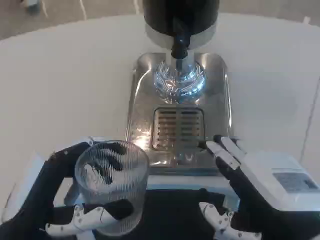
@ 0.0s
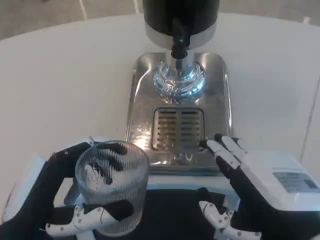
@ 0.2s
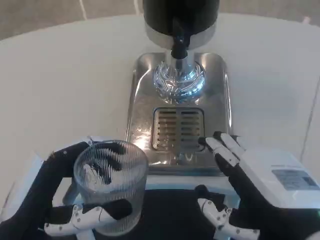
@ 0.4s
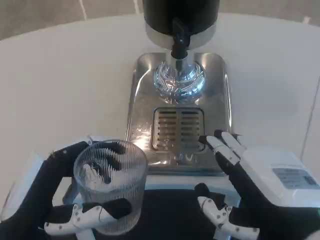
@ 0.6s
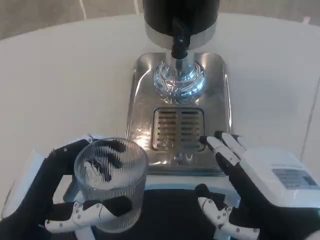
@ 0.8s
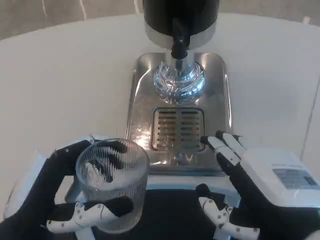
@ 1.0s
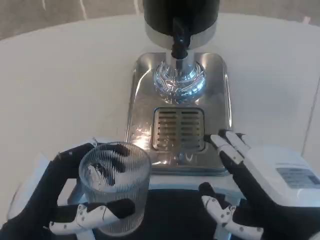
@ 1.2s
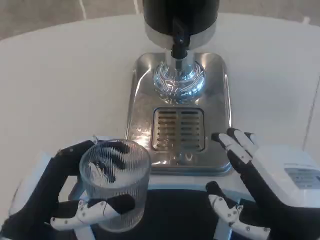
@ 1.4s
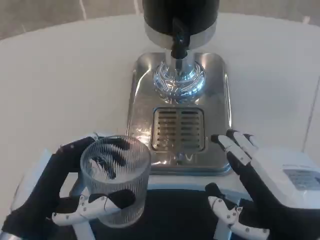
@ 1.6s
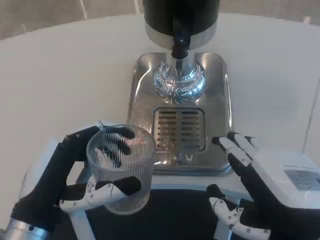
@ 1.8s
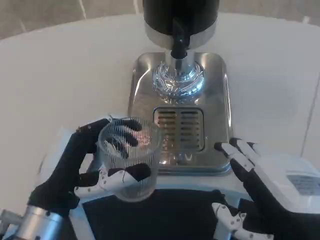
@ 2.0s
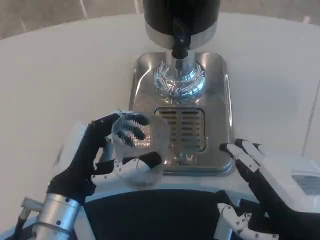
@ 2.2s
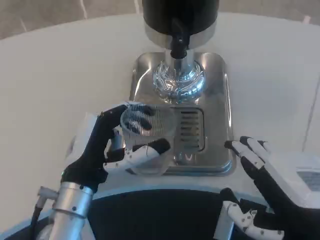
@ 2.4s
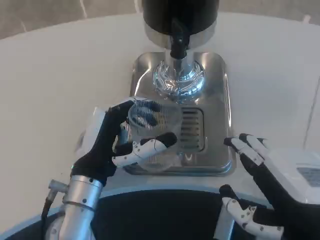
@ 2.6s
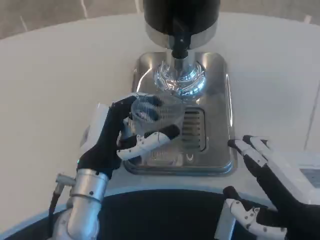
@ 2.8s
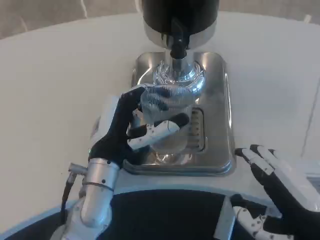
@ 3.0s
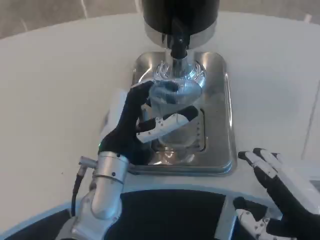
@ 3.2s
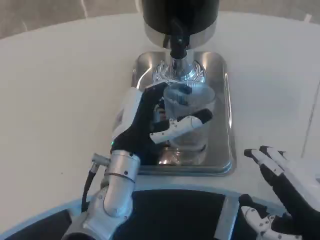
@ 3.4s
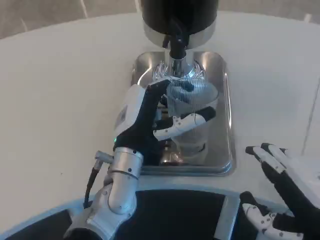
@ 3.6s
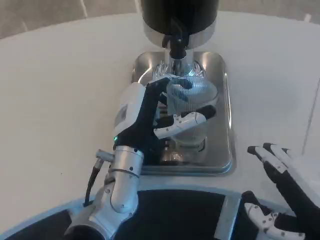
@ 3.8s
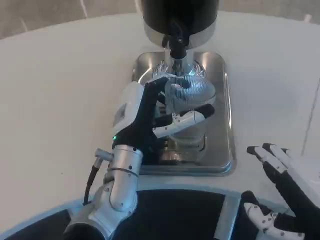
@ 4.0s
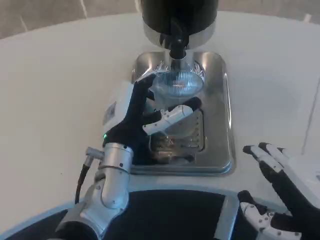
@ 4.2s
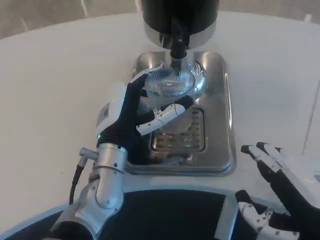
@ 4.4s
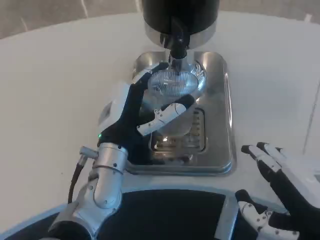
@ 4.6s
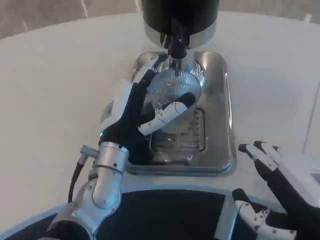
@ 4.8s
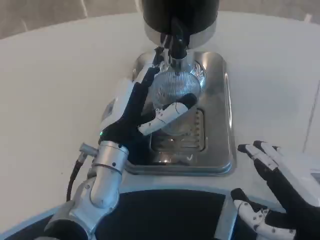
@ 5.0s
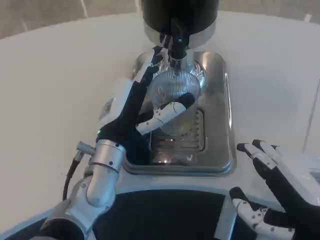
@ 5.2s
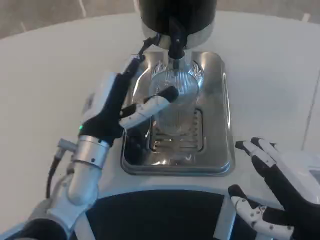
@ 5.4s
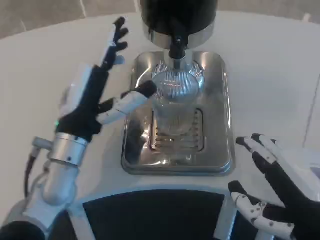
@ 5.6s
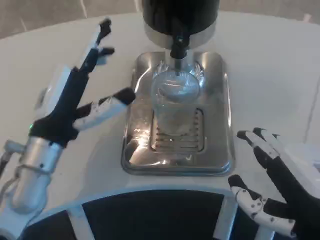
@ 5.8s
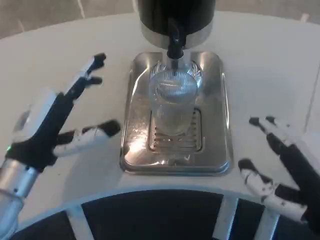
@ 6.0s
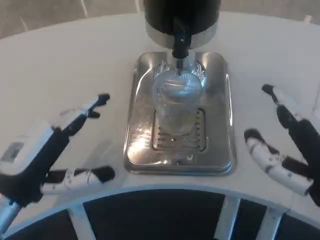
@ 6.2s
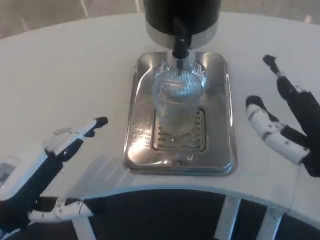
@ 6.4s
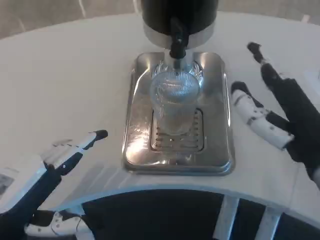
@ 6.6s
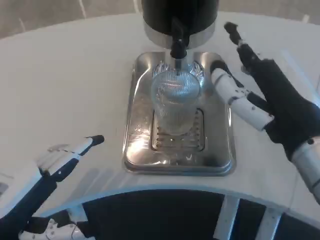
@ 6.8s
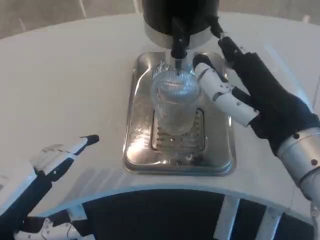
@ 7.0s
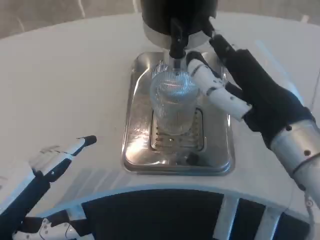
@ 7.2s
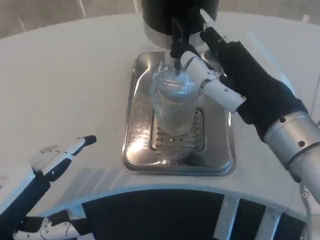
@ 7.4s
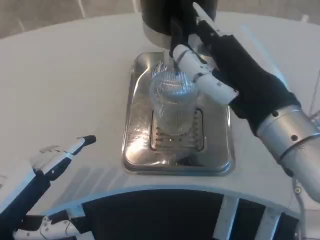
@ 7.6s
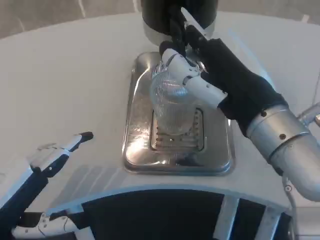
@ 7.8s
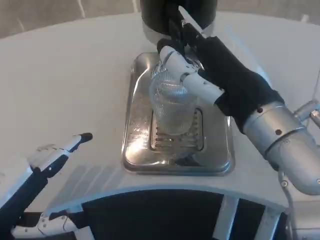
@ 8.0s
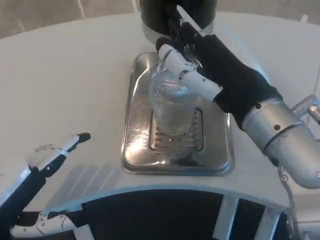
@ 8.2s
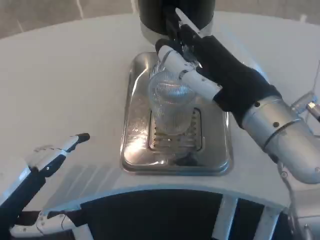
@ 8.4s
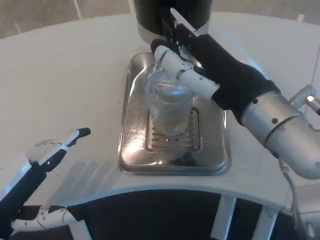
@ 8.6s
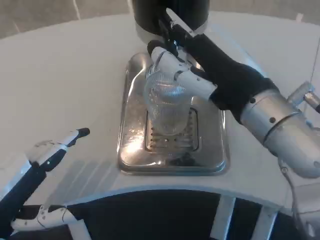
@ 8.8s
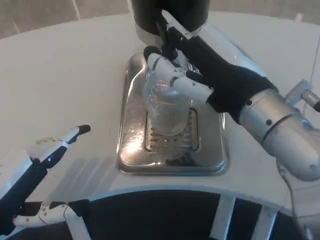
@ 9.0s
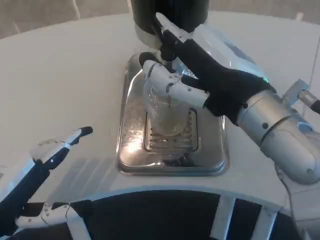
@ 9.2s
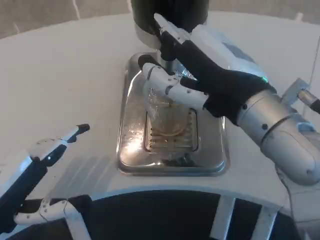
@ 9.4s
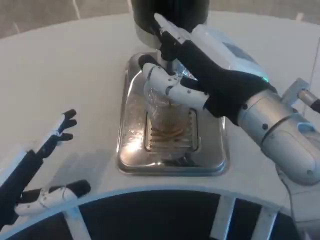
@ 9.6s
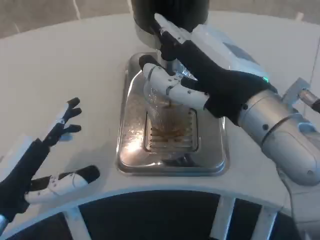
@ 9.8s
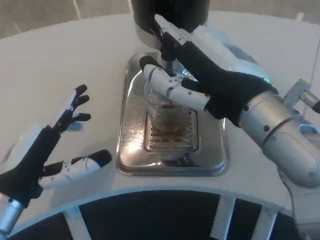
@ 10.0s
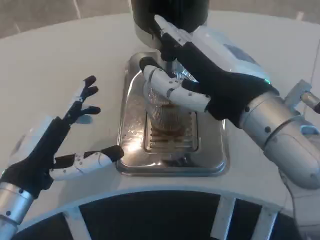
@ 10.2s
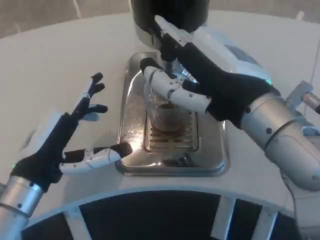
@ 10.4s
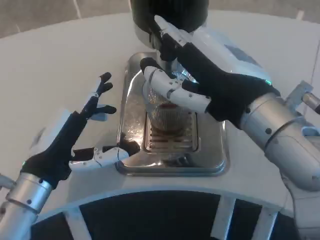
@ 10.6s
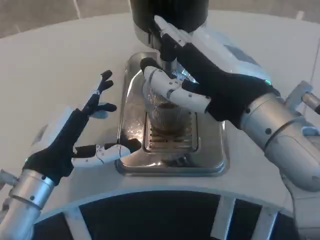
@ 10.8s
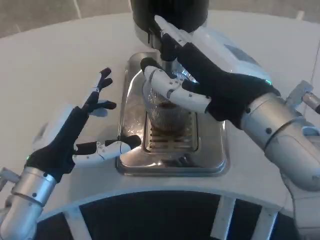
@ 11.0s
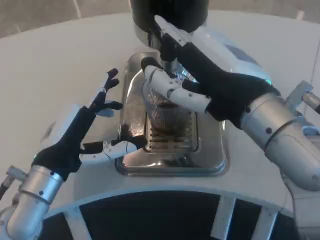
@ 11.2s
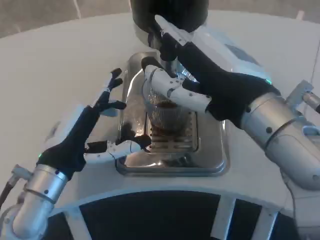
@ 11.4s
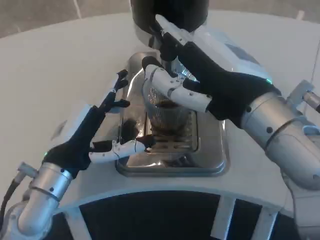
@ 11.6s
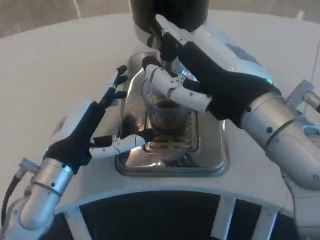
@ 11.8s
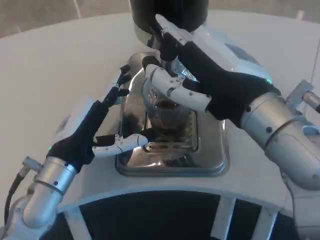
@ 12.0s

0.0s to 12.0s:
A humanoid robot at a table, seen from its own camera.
Task of the whole recording: Grasp the cup under the faucet to collect the drink, then remove the cup.
0.0s to 1.6s: There are only small adjustments of the hands.
1.6s to 3.0s: The left hand is displaced forward and to the right by about 15 cm.
3.0s to 4.4s: The hands make only small movements.
4.4s to 6.0s: The left hand shifts approximately 15 cm to the left and backward.
6.0s to 7.6s: The left hand heads backward, covering approximately 10 cm; the right hand goes about 10 cm forward and to the left.
9.0s to 10.4s: The left hand travels to the right and forward by about 10 cm.
10.4s to 12.0s: The left hand moves some 5 cm.

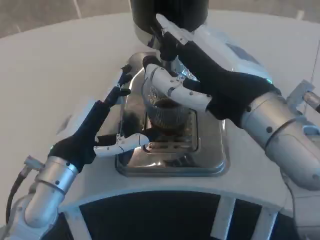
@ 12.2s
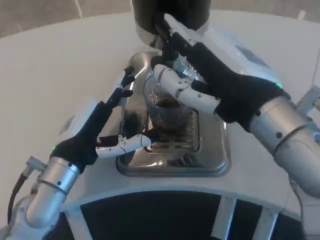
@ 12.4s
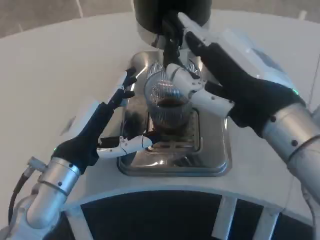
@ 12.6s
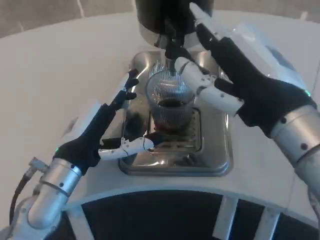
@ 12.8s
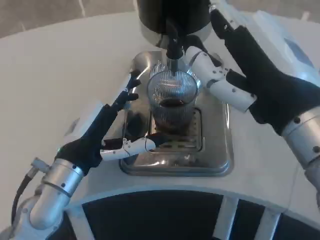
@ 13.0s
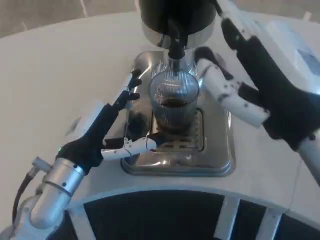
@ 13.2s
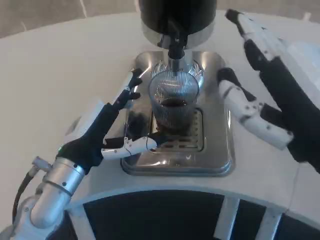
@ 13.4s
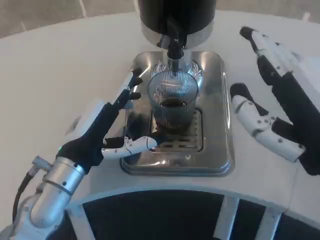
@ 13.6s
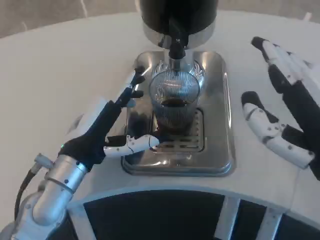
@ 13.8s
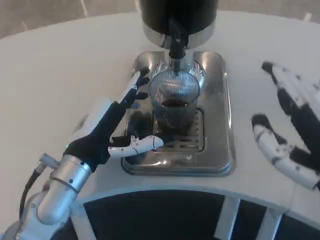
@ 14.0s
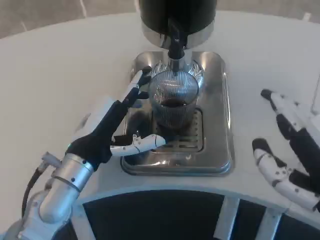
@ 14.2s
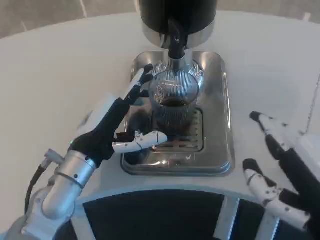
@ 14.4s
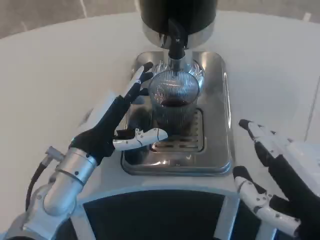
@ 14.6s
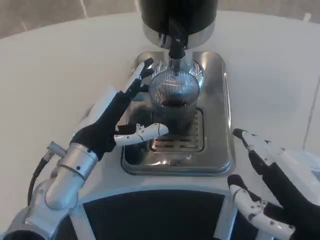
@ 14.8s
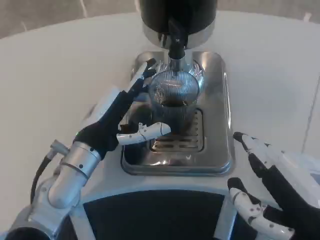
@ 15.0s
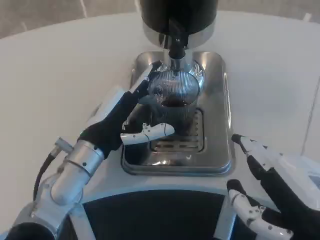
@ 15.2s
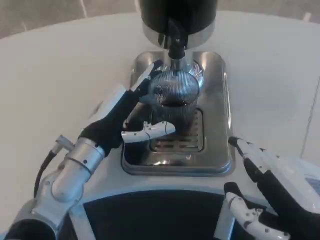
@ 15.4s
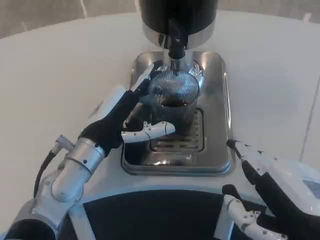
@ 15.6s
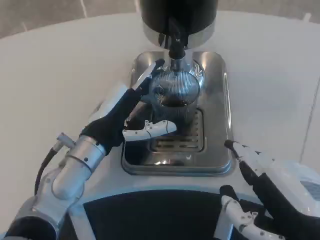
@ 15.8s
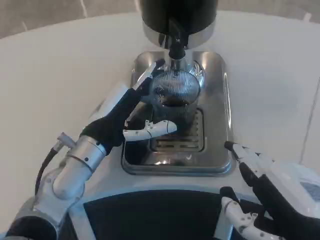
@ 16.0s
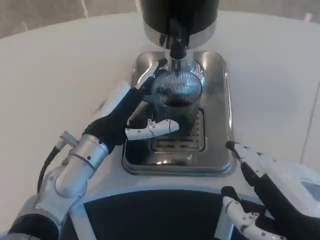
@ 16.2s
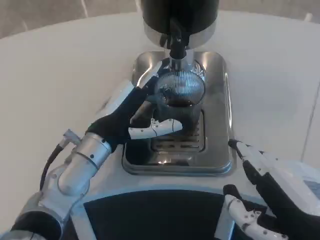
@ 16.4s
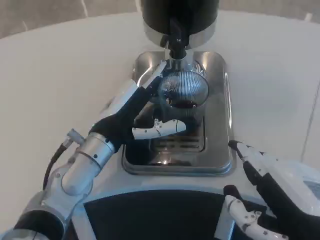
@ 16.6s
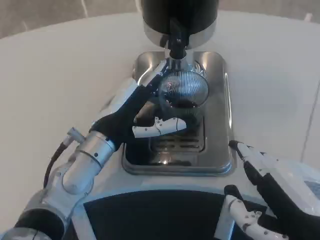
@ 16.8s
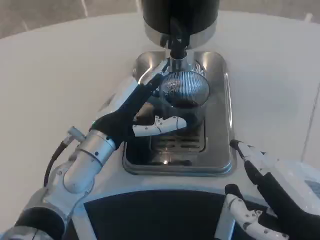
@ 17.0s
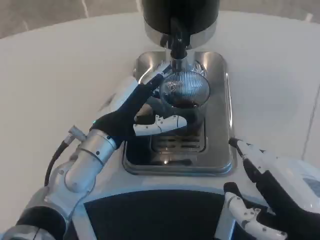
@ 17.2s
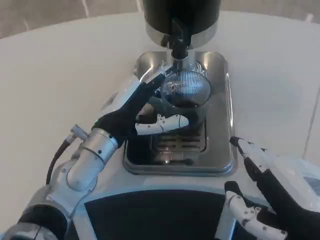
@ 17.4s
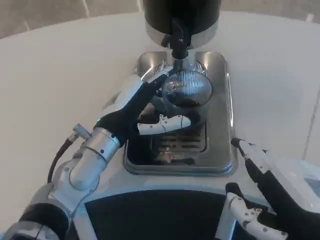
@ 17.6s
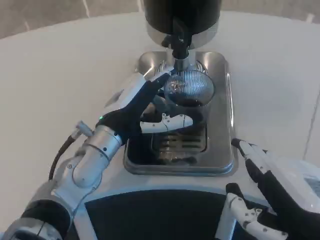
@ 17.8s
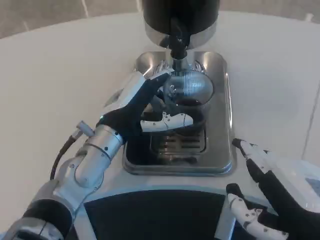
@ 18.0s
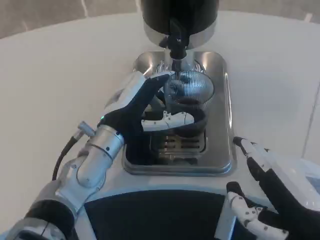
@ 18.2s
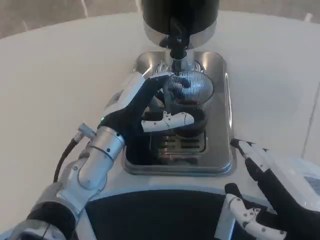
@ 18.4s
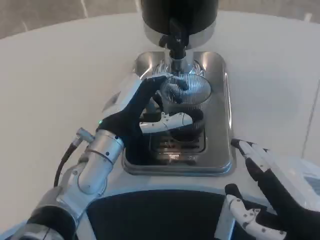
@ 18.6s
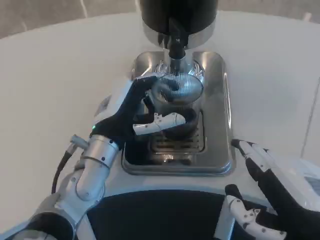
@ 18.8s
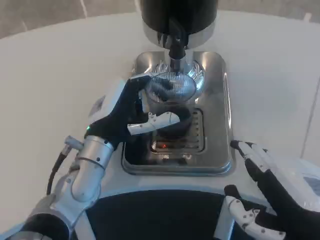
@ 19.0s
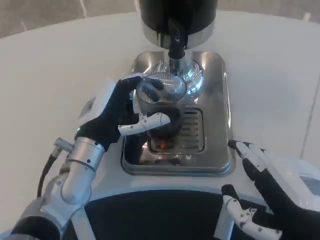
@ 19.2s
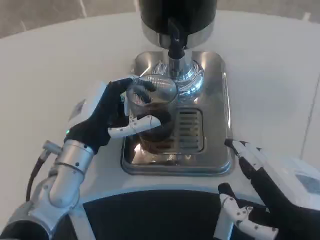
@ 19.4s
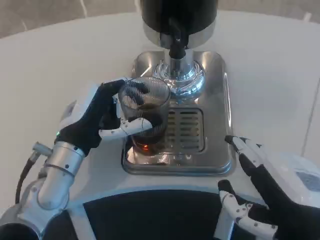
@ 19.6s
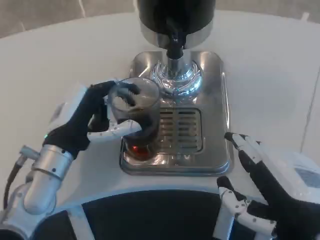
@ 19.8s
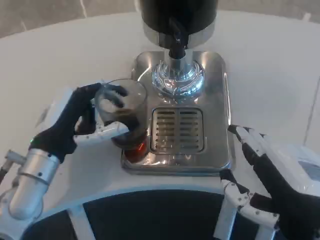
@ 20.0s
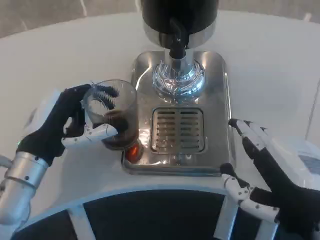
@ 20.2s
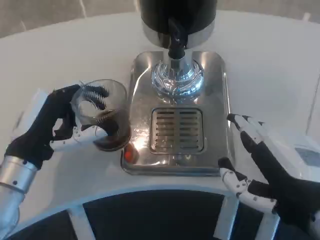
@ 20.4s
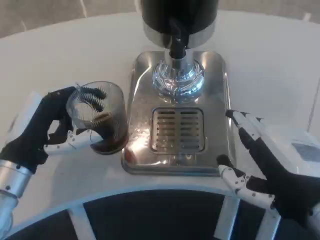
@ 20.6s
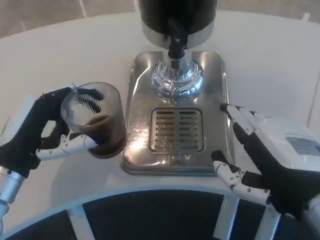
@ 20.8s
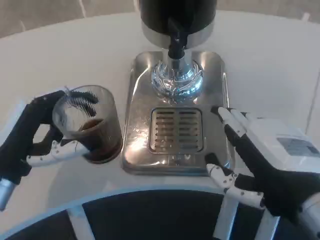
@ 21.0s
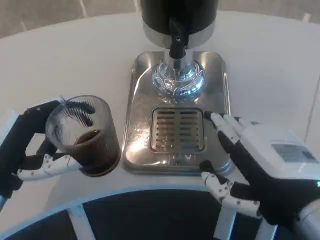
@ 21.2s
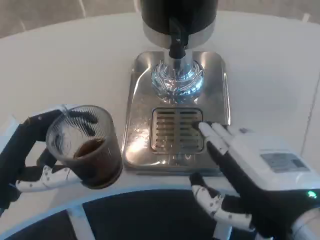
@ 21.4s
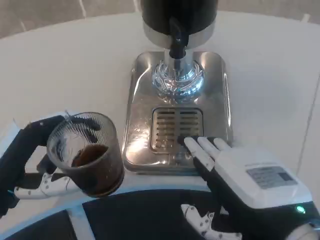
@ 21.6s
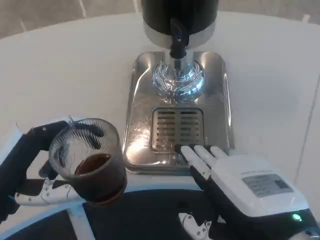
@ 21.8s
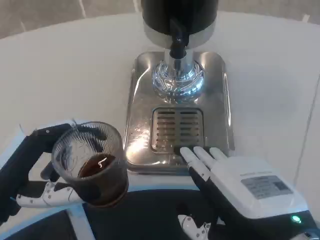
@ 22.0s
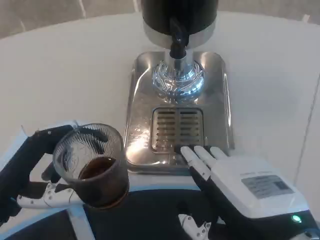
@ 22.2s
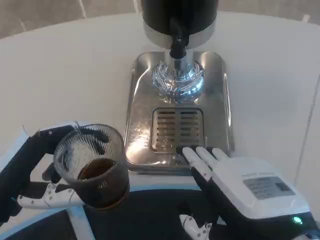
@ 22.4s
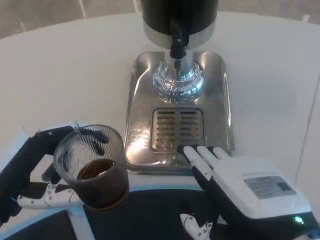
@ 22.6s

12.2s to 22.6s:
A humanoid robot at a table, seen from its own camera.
Task of the whole recording: Grasp the cup under the faucet to collect the drink, then remove the cup.
12.2s to 13.6s: The right hand travels backward and to the right by approximately 10 cm.
13.6s to 15.2s: The right hand ends up approximately 5 cm from where it was.
15.2s to 18.2s: The hands stay close to where they were, moving slightly.
18.2s to 19.6s: The left hand moves to the left, roughly 5 cm.
19.6s to 21.2s: The left hand is displaced to the left and backward by about 10 cm.
